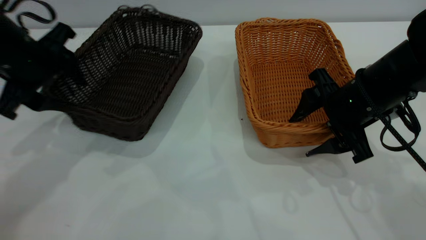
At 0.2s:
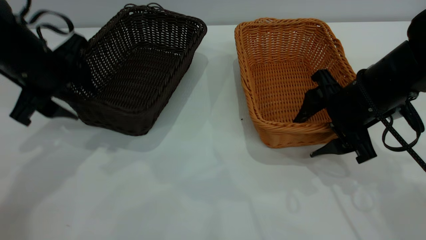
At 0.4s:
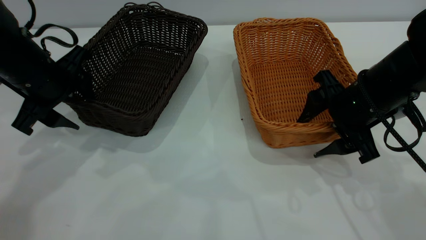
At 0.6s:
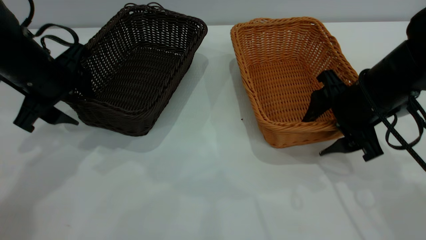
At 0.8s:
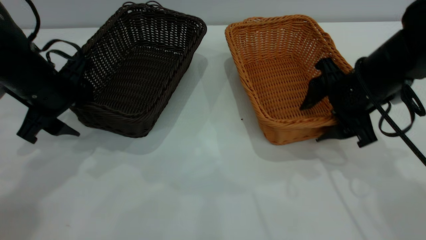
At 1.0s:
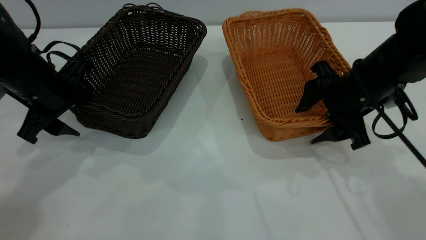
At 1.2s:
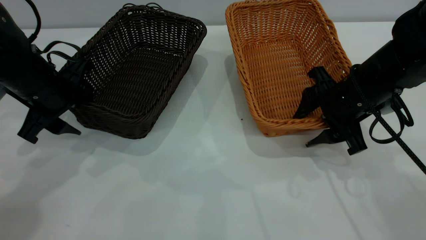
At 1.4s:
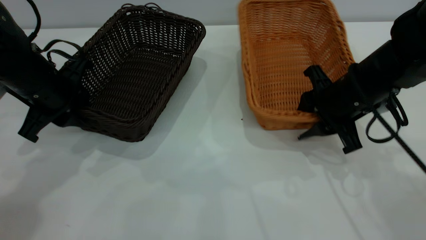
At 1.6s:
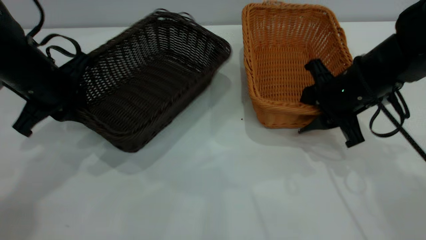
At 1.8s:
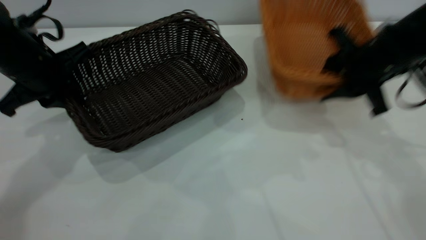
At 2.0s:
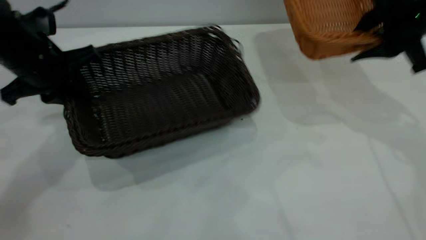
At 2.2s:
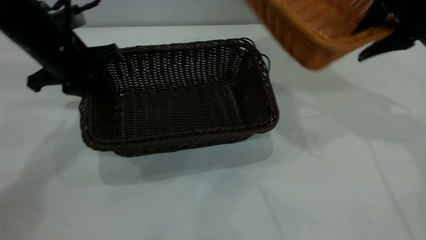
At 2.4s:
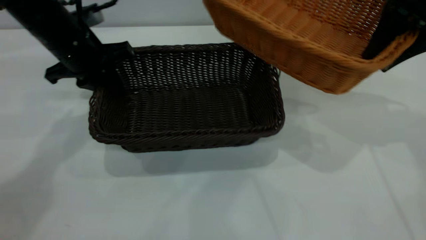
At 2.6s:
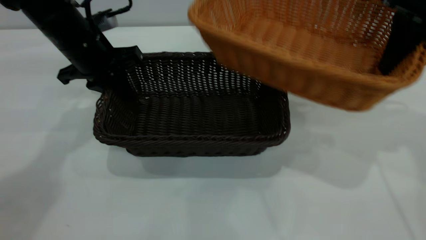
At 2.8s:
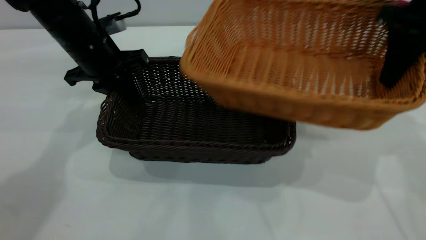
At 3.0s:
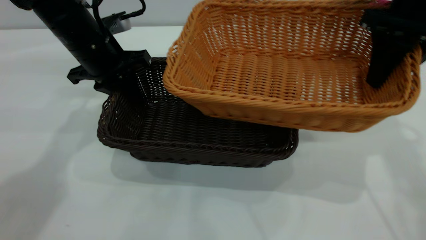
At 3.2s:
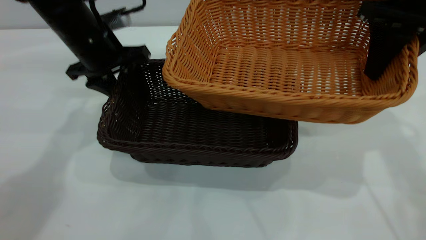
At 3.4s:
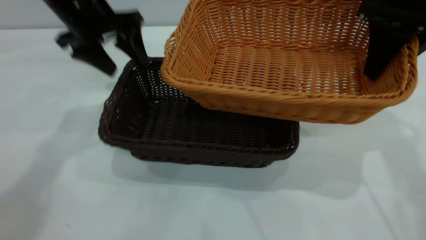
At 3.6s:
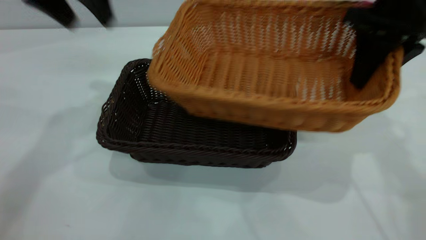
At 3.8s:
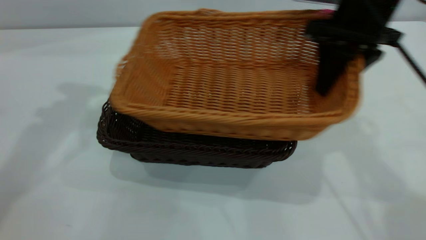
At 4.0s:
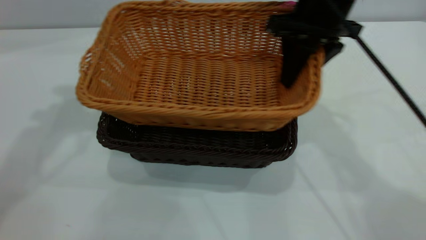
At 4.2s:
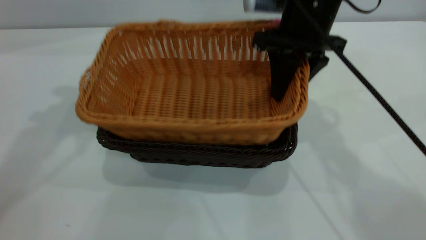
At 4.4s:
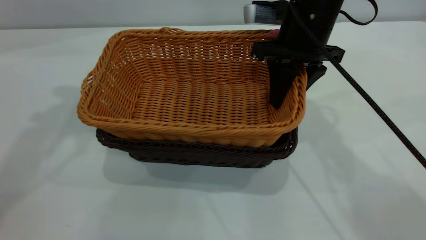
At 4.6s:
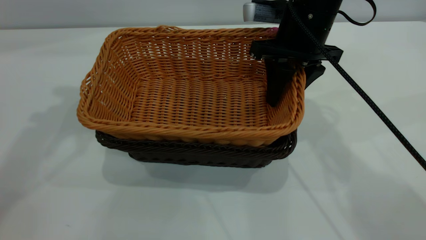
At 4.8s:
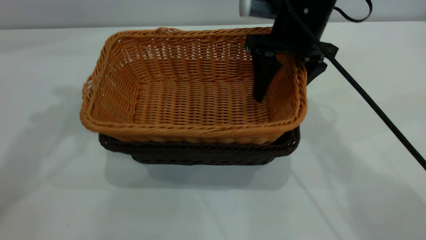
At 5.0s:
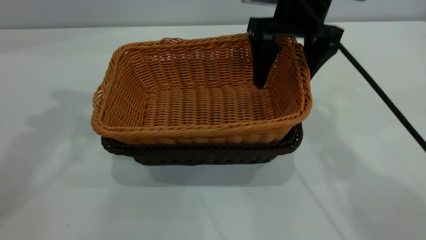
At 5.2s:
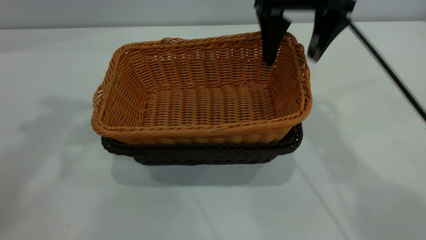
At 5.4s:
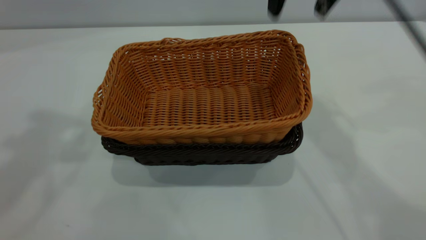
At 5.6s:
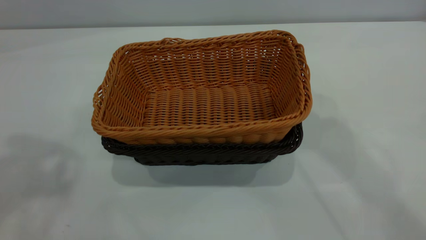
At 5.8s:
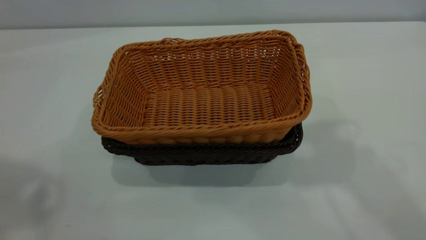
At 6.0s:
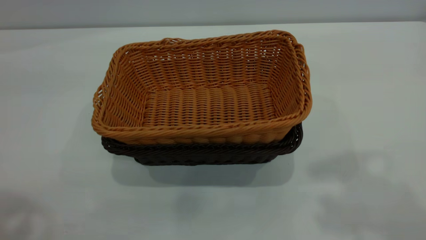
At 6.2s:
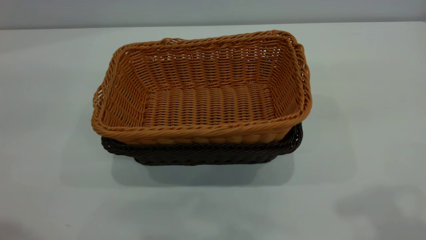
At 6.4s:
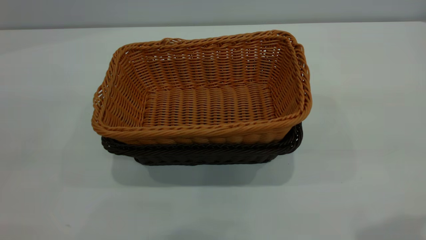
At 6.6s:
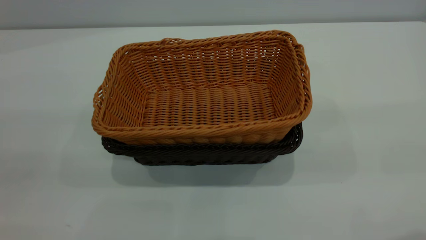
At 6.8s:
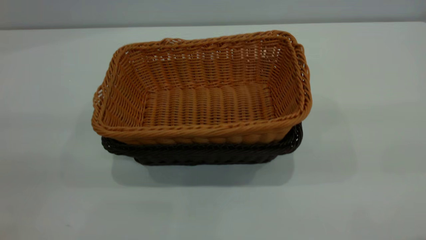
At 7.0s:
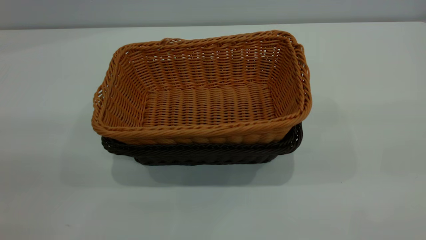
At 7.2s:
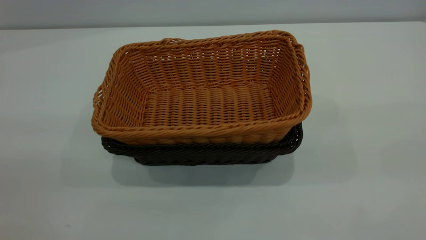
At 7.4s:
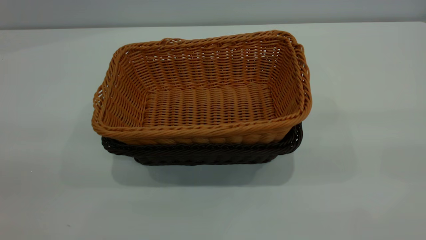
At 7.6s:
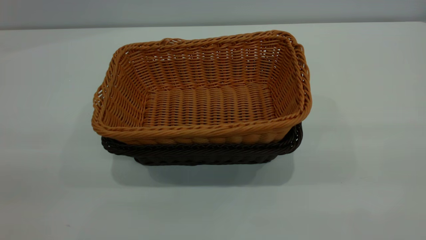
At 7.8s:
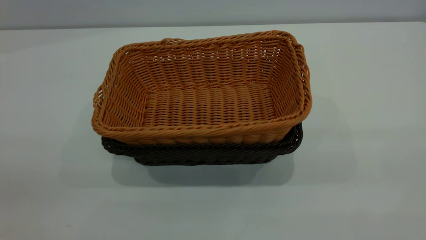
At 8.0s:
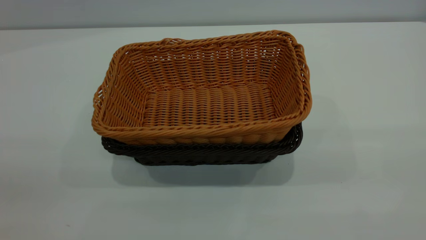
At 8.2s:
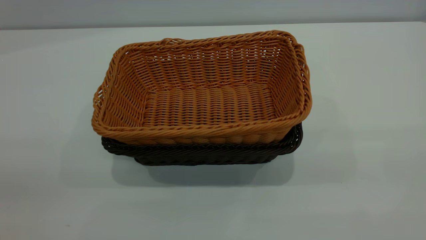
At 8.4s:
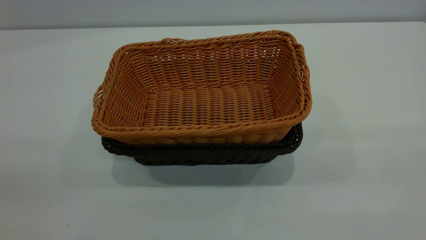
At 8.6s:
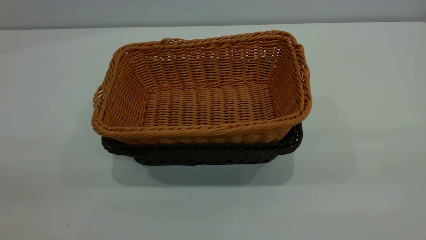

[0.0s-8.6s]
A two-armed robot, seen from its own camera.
Task of the whole recording: the left gripper grasp the black basket and place it in the center of the table, the right gripper grasp the brown basket and place it inside the black one.
Step, 1.8s to 3.4s: Move the dark basket to the center of view.
Step, 3.6s to 5.2s: Place the light basket on the dark basket.
0.0s to 1.4s: The left gripper closes, while the right gripper closes.
1.4s to 2.8s: The right gripper travels upward and to the right by about 15 cm; the left gripper goes about 10 cm forward and to the right.
2.8s to 4.4s: The right gripper travels to the left by about 15 cm; the left gripper moves upward, about 25 cm, and opens up.
4.4s to 5.8s: The right gripper travels upward and backward by approximately 30 cm, and opens up, while the left gripper travels backward and upward by about 20 cm.

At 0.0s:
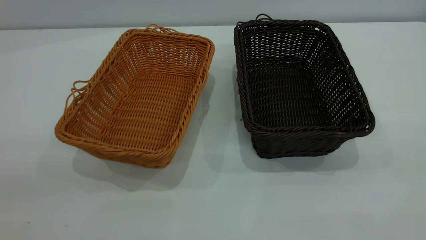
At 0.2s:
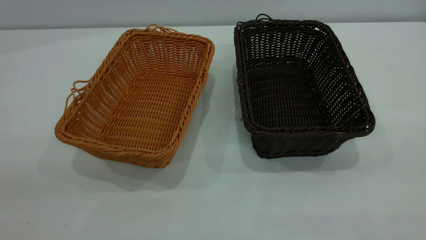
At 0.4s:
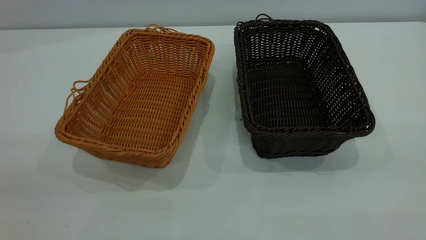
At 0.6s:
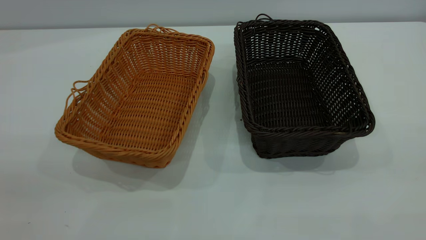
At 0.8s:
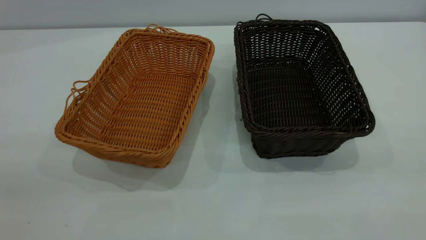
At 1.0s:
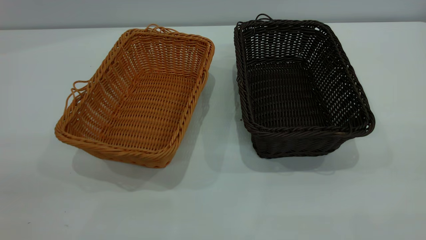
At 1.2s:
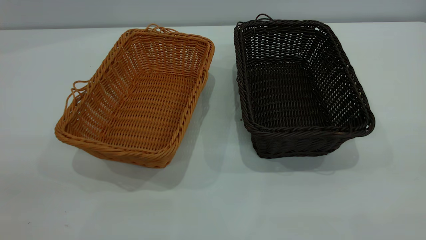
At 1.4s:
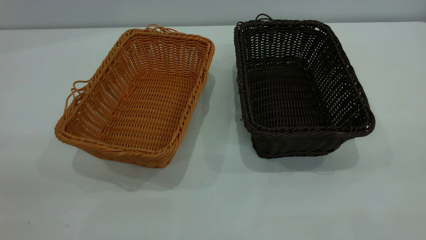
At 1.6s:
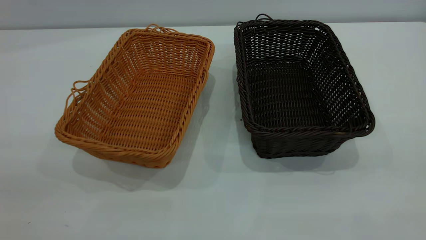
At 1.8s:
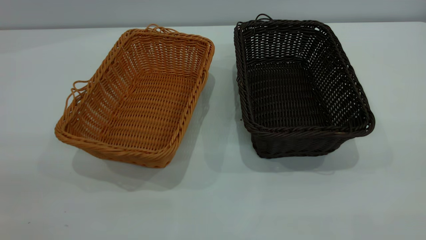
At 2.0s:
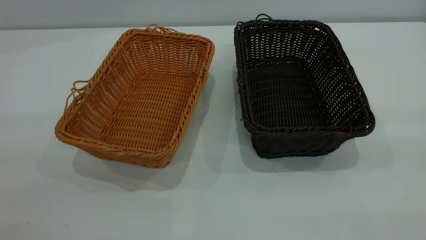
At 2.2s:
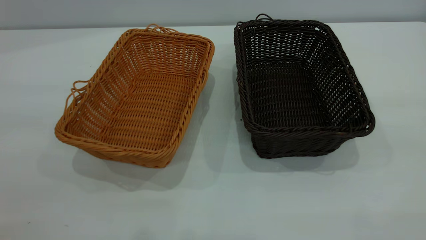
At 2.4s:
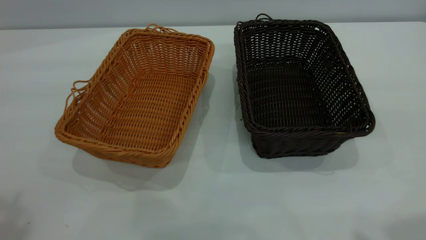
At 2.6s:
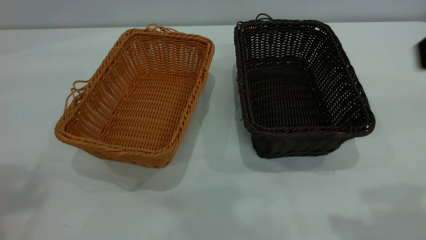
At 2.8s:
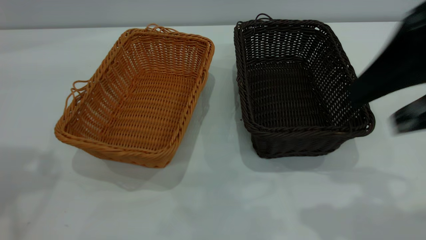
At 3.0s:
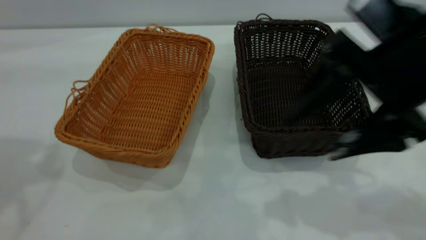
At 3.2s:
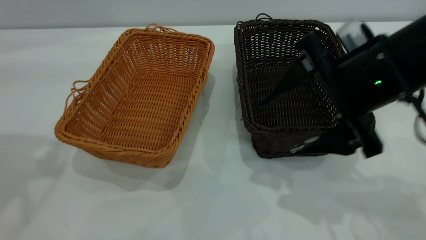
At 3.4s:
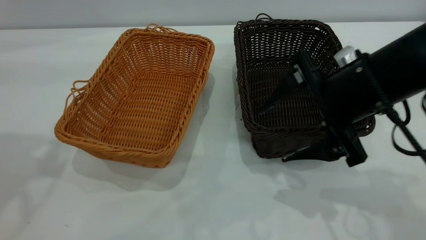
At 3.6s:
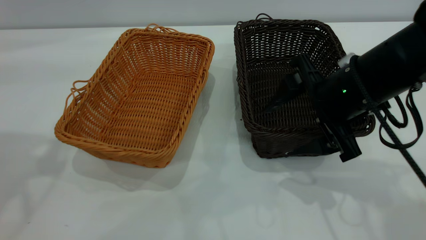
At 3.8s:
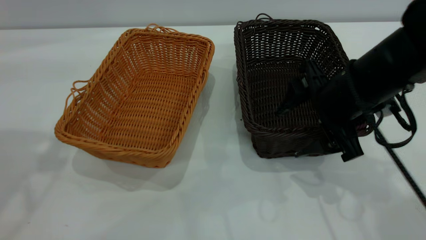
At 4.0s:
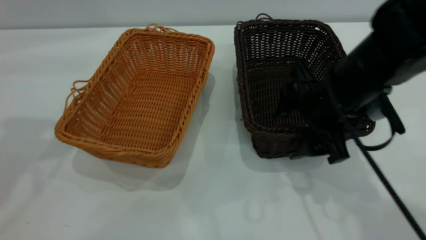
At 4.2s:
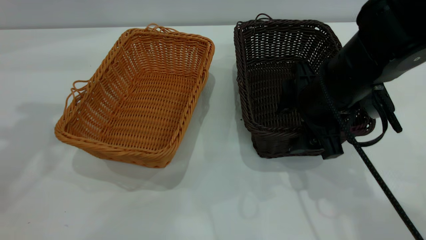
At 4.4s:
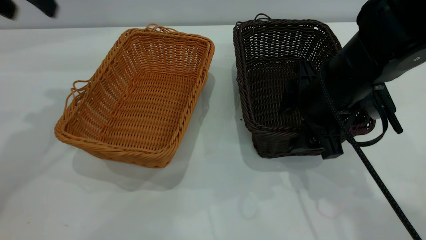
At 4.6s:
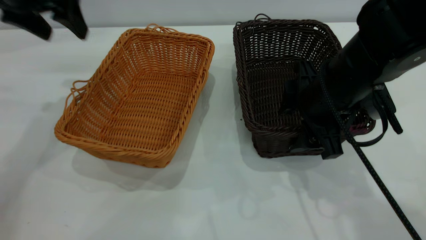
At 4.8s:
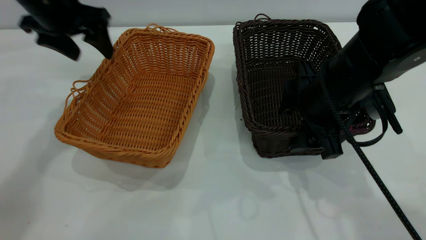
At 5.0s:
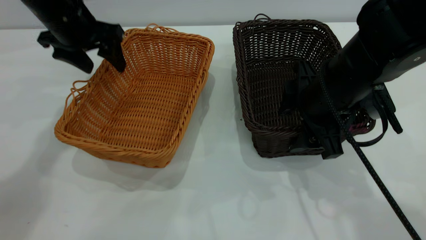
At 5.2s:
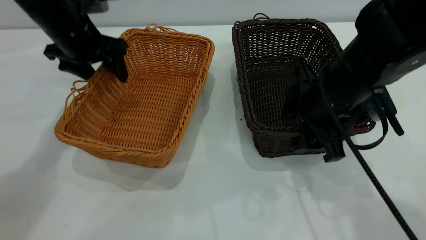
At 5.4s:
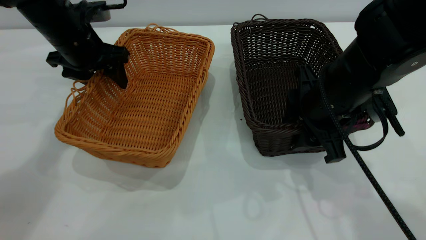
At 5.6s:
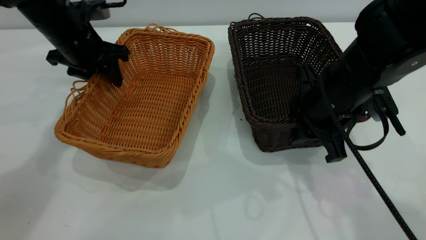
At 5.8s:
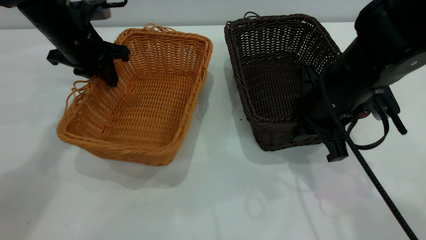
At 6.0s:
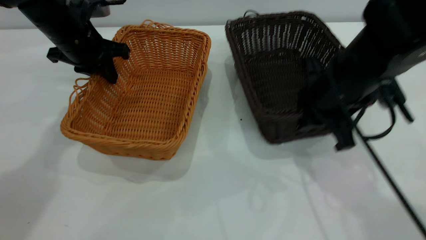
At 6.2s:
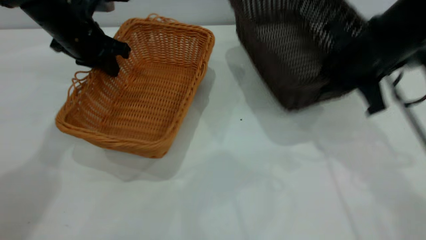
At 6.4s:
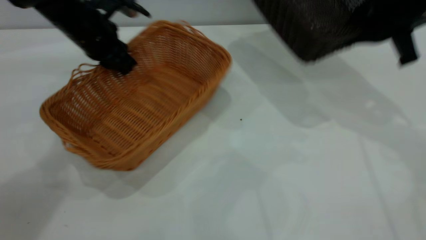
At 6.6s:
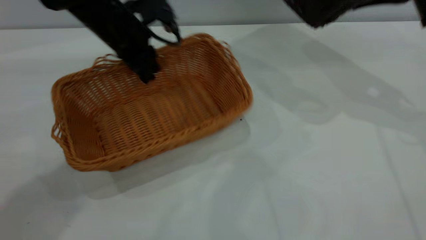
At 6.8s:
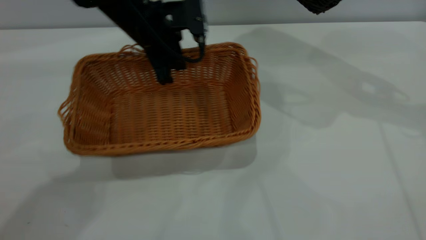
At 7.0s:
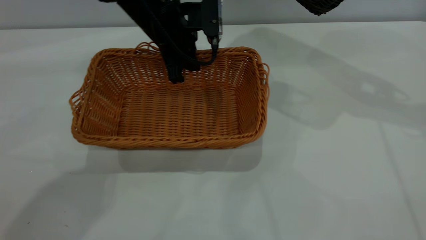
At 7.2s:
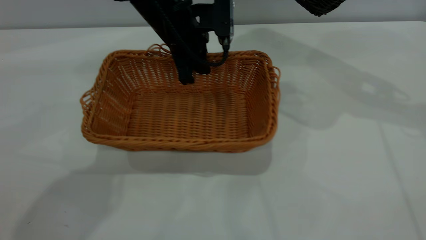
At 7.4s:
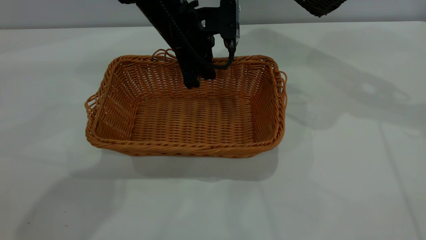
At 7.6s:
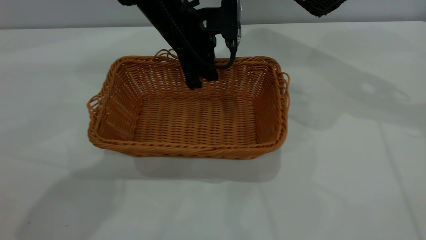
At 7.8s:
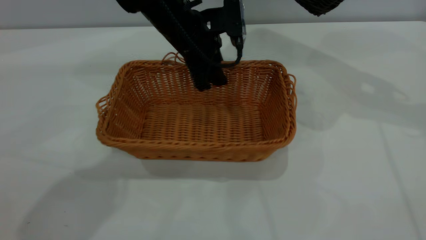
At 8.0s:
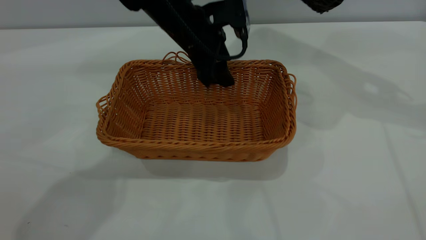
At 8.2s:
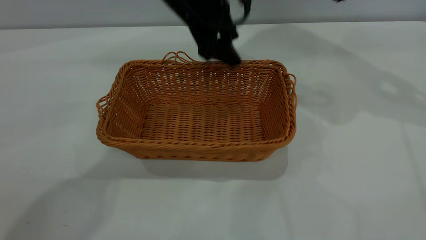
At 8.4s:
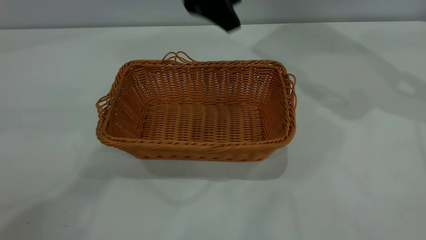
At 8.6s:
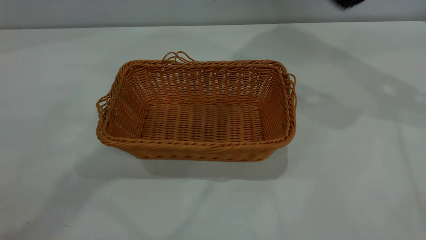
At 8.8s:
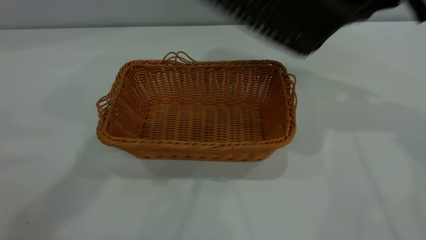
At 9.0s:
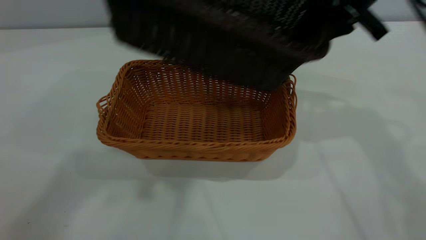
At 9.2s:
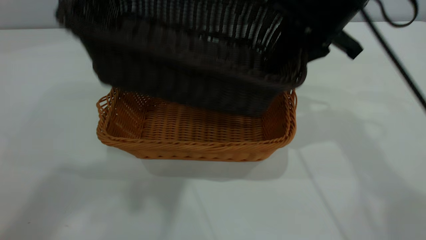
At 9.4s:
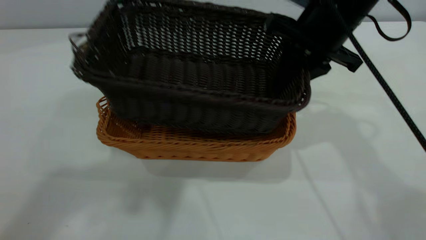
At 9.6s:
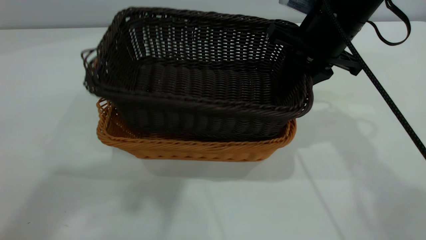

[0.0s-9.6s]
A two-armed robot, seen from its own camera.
Task of the whole recording: the left gripper grasp the brown basket and place it in the center of the table, the right gripper grasp the black basket and place it inside the brown one.
Step, 0.0s to 6.0s: Pick up the light basket with the right gripper.
Step, 6.2s to 8.0s: Place the light-colored basket in the center.
0.0s to 1.6s: The two grippers keep their place.
1.6s to 3.2s: The right gripper shifts approximately 35 cm forward, downward and to the left.
3.2s to 4.8s: The left gripper heads forward, downward and to the right, covering some 25 cm. Meanwhile the right gripper heads downward, covering roughly 5 cm.
4.8s to 6.4s: The right gripper moves to the right, upward and forward, roughly 20 cm, and closes up. The left gripper heads downward, covering approximately 5 cm, and closes.
6.4s to 8.0s: The left gripper shifts some 15 cm to the right, and opens its fingers. The right gripper heads upward, covering some 5 cm.
8.0s to 9.6s: The right gripper heads to the left and downward, covering some 20 cm. Meanwhile the left gripper is displaced upward and backward by roughly 40 cm.
